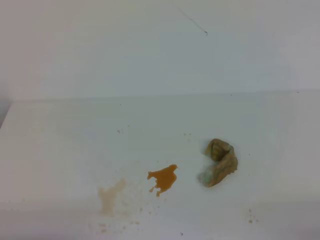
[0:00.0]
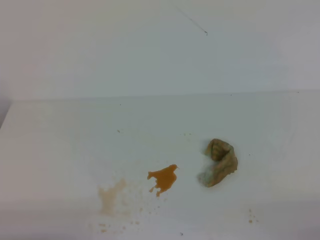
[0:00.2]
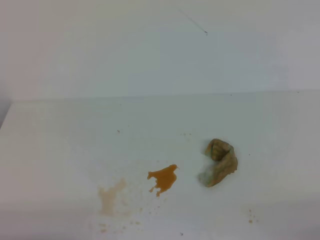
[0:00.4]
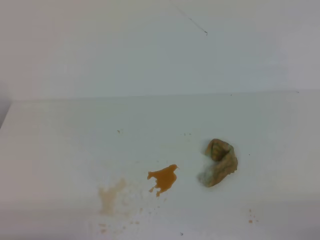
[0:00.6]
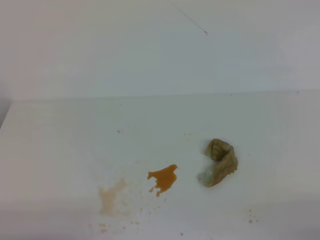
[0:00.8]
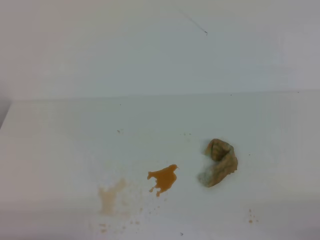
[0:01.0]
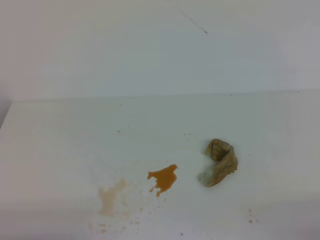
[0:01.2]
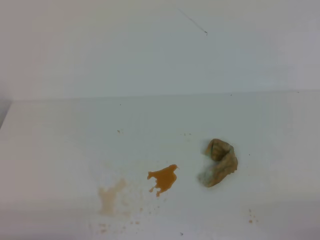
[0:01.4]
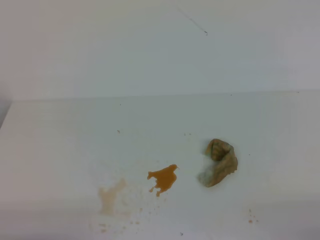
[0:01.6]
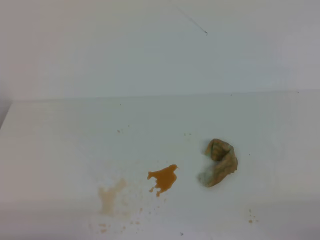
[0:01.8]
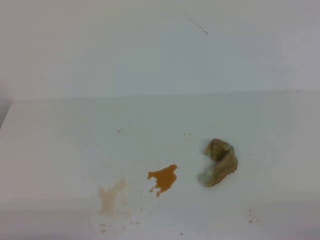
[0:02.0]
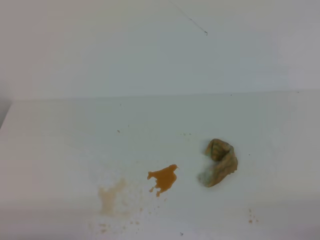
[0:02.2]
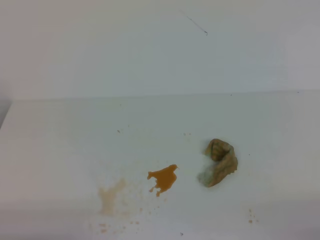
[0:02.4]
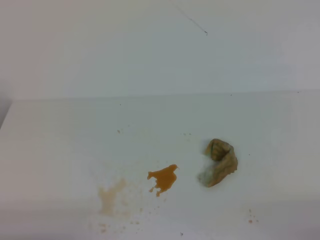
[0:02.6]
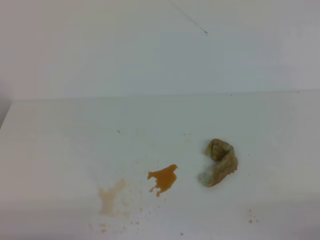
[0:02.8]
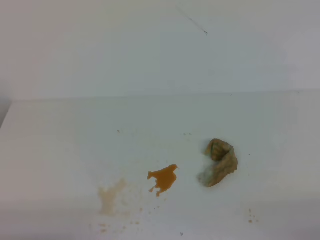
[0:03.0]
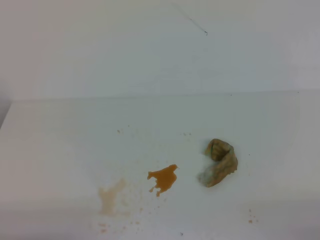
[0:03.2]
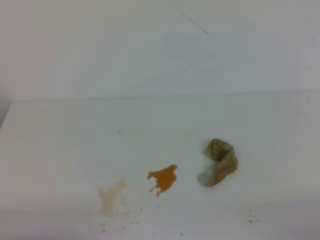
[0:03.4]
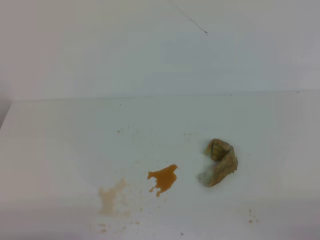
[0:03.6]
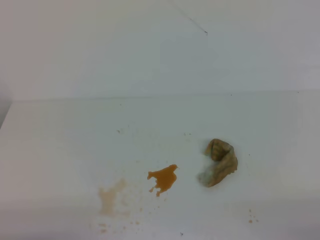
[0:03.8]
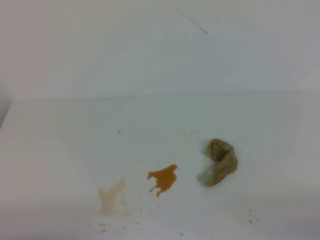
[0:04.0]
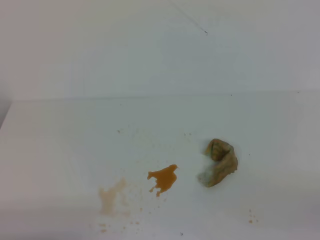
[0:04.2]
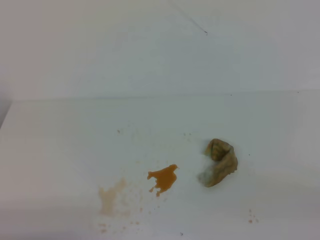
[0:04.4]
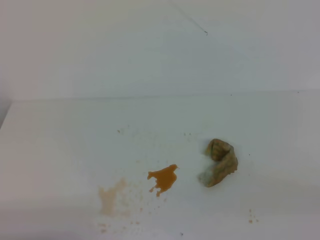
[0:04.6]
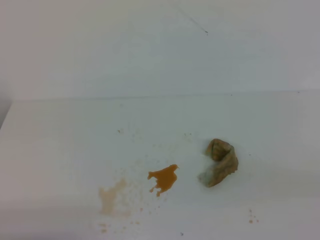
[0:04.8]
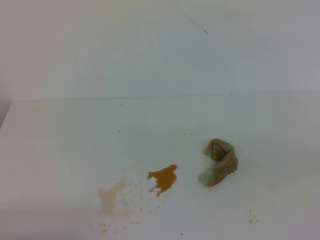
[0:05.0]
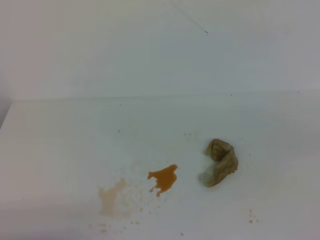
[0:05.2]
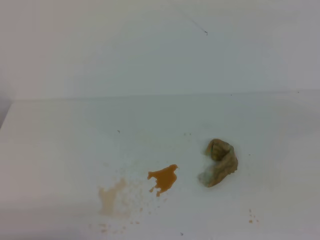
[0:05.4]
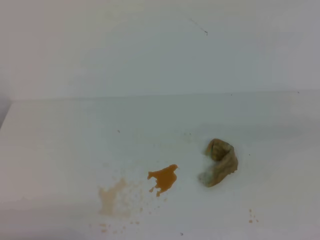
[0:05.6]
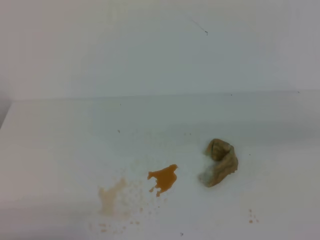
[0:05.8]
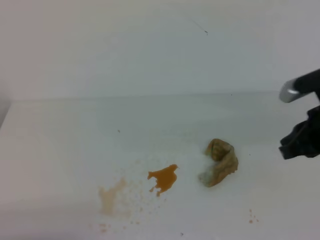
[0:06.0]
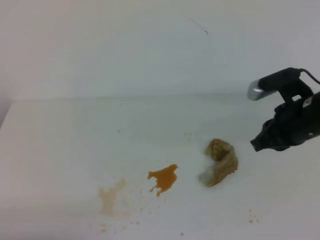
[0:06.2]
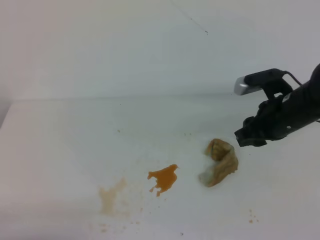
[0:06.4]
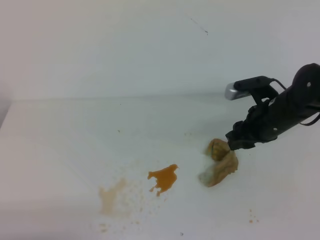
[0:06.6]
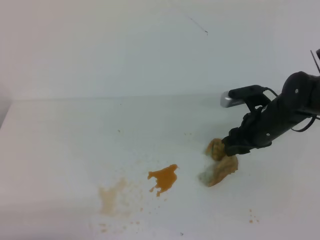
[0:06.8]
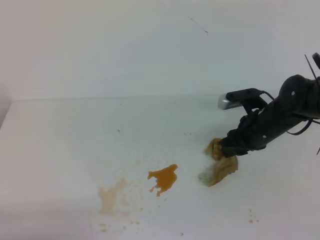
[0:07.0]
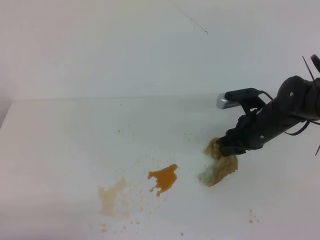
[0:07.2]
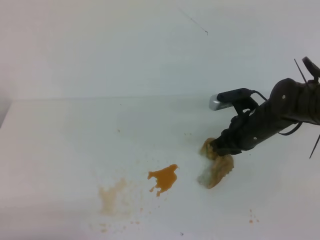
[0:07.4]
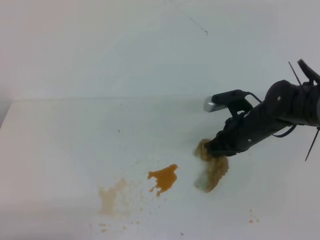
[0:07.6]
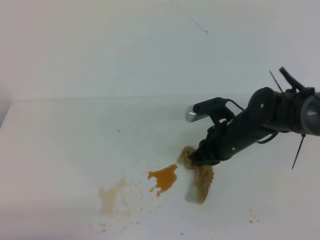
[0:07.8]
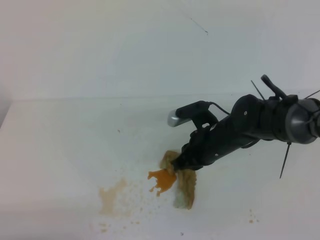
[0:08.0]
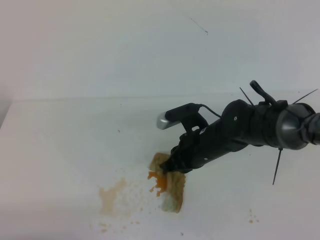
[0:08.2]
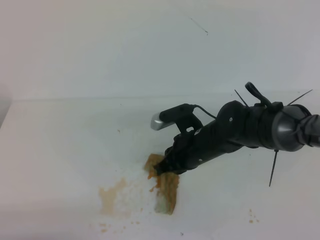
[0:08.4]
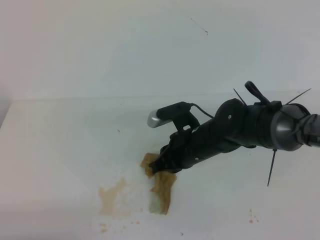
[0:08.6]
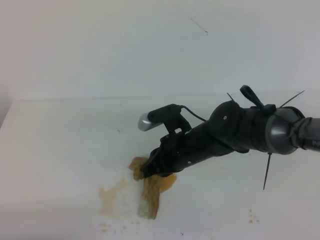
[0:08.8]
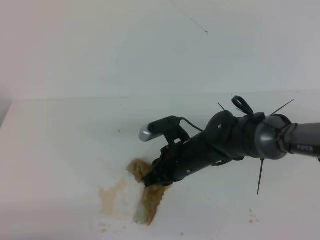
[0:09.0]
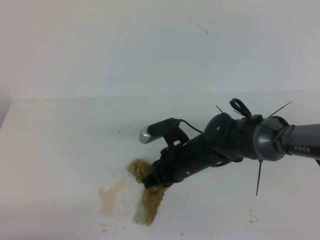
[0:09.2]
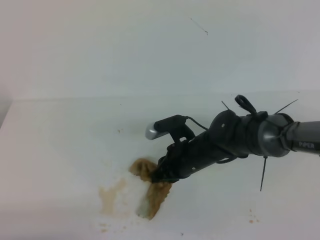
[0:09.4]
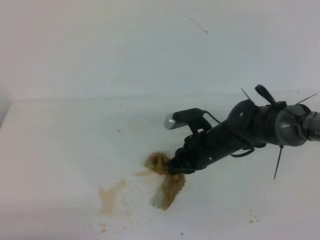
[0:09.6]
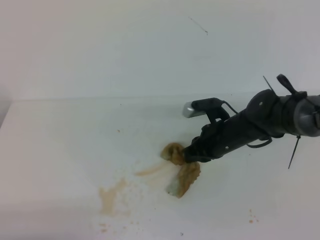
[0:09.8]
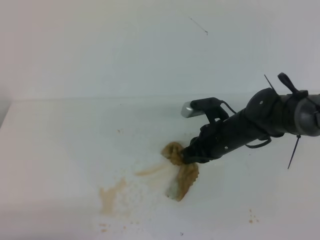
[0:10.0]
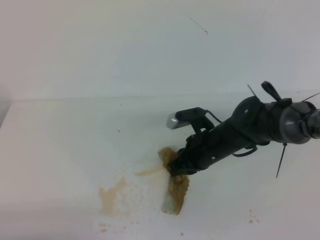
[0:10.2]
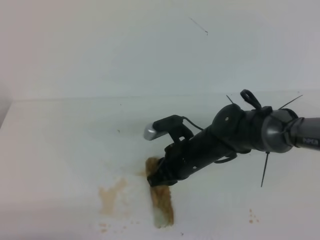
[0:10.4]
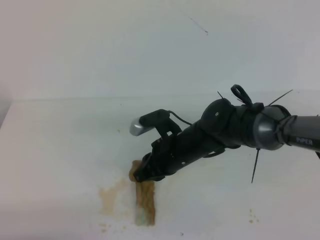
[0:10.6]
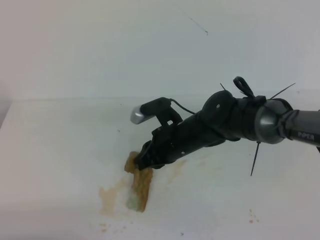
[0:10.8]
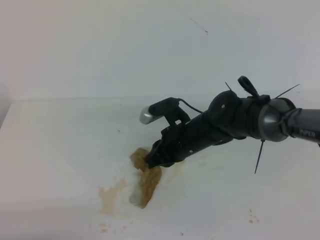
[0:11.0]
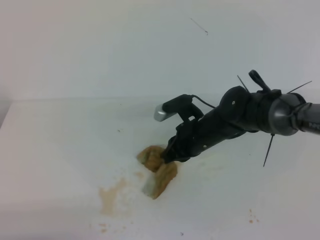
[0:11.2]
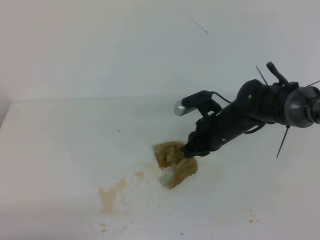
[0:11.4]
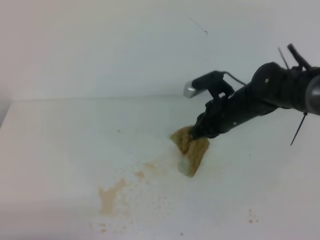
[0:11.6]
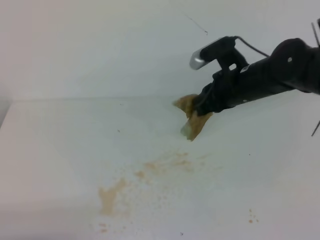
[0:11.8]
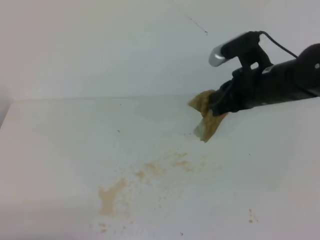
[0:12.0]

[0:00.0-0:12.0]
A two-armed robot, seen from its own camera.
0:00.0 to 0:03.0: The two grippers keep their place.
0:04.4 to 0:06.0: The right gripper moves forward, roughly 20 cm.
0:06.0 to 0:07.6: The right gripper heads downward, forward and to the left, covering about 20 cm, and opens, then closes again.
0:07.6 to 0:09.0: The right gripper goes approximately 10 cm to the left.
0:10.4 to 0:12.0: The right gripper is displaced upward and to the right by roughly 15 cm.

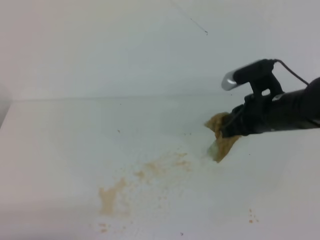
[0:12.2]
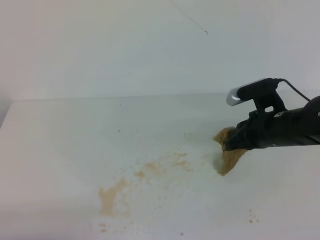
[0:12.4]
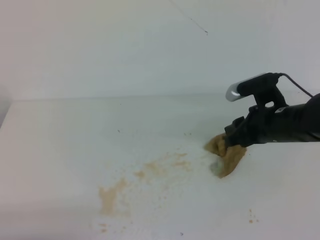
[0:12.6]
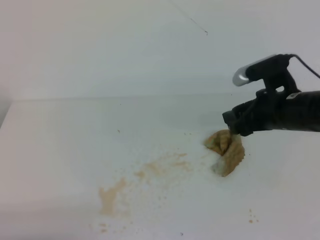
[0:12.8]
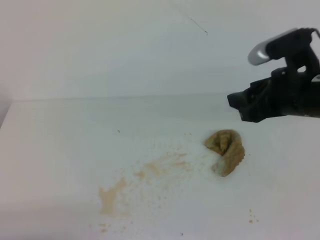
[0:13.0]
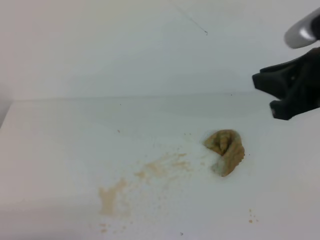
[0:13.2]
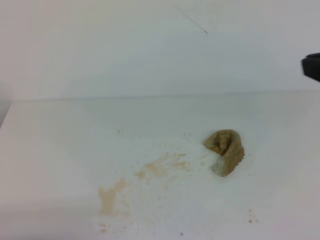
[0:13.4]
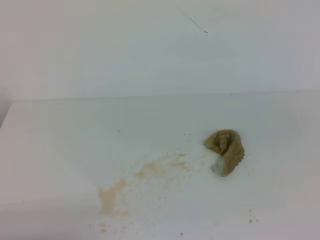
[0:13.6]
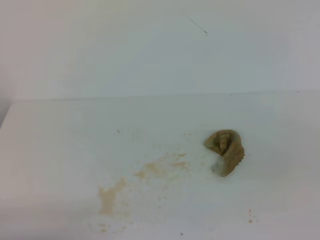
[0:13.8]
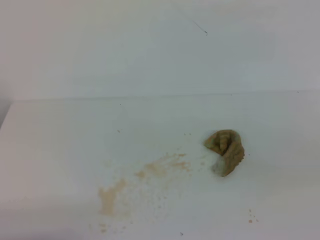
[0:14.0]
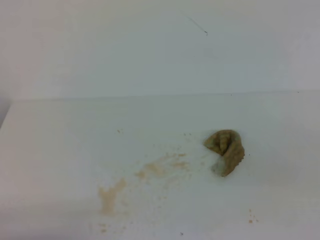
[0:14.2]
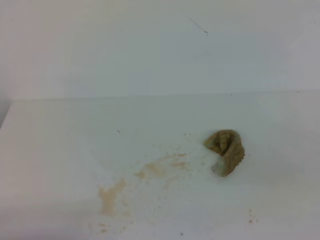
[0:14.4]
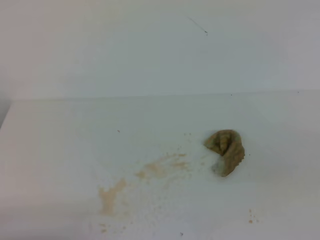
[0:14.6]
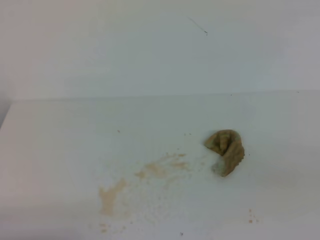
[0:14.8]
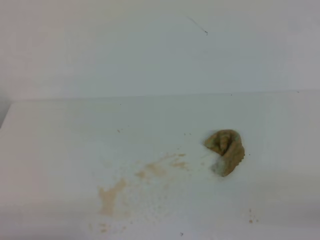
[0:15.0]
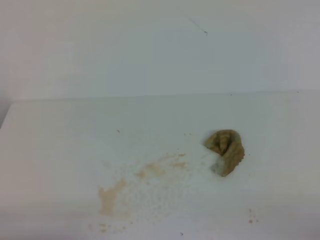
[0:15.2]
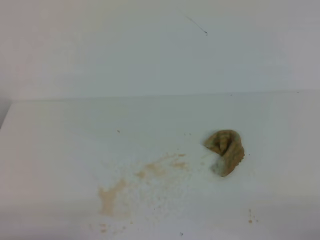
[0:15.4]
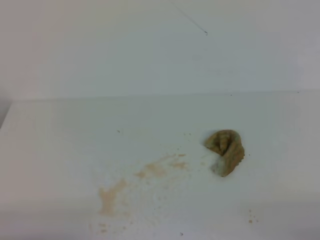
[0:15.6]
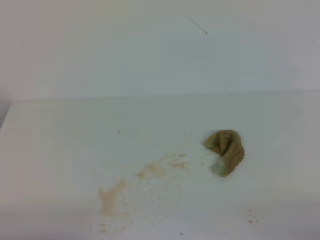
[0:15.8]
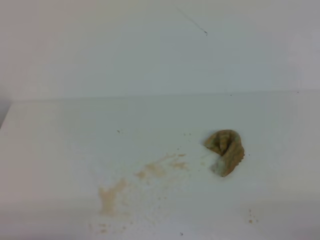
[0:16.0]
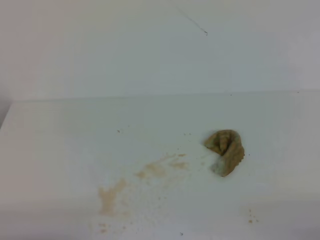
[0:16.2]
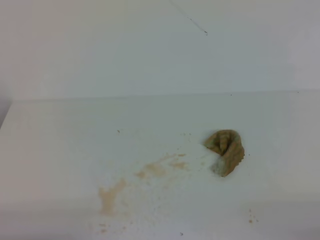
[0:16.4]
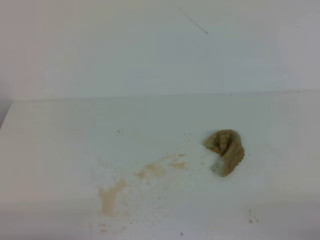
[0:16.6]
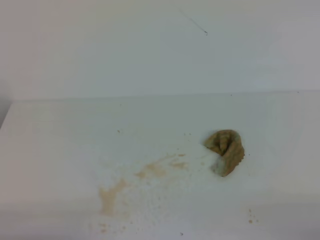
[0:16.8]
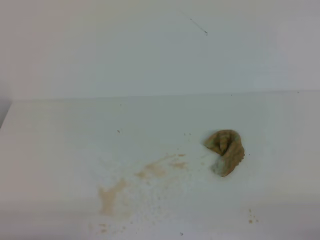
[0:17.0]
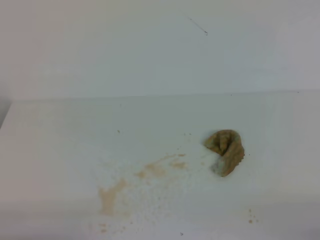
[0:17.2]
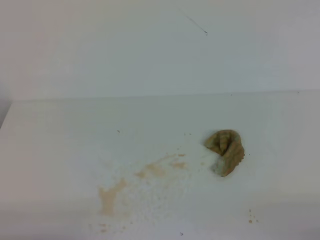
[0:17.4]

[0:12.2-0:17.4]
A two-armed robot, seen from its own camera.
0:12.2 to 0:14.0: The right gripper shifts roughly 30 cm backward and to the right, and opens, then closes once more.
0:15.6 to 0:17.4: The two grippers keep their place.
